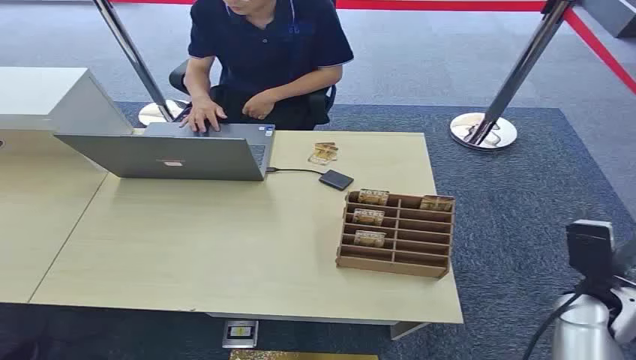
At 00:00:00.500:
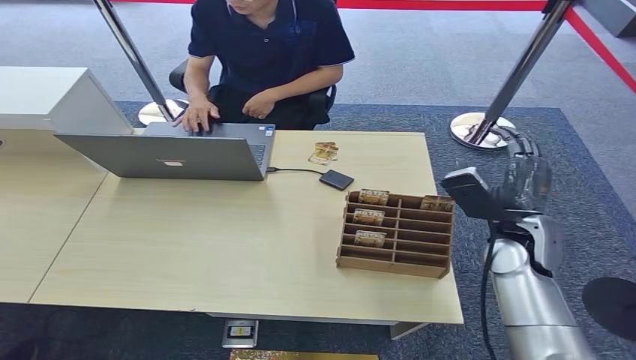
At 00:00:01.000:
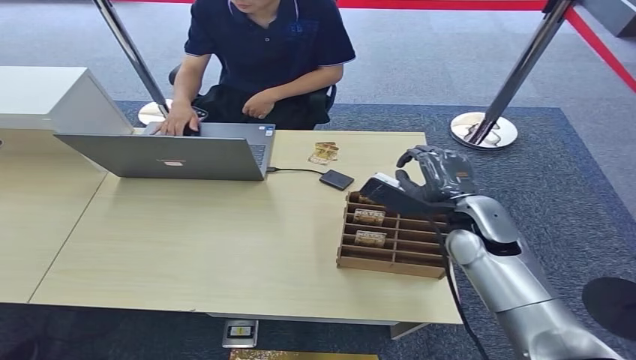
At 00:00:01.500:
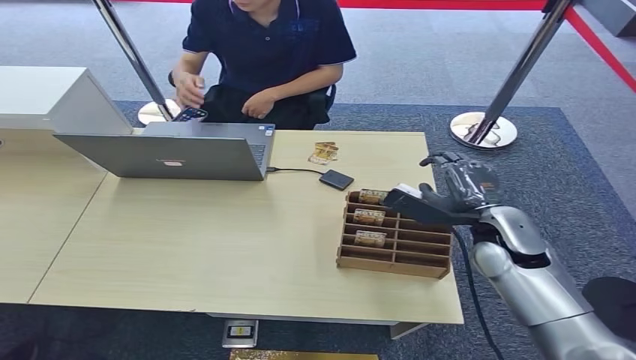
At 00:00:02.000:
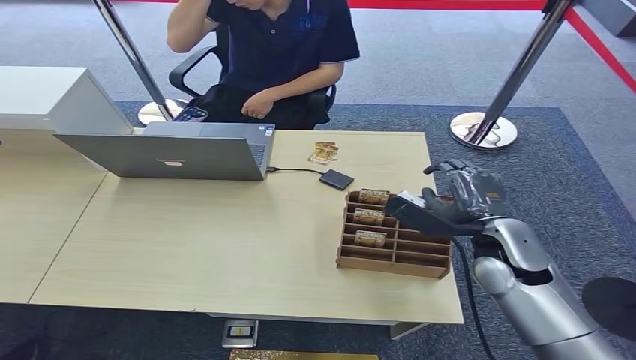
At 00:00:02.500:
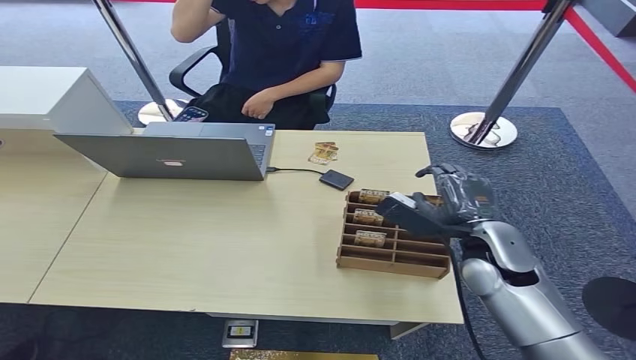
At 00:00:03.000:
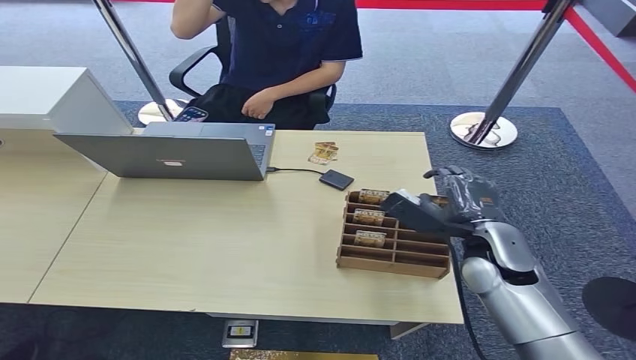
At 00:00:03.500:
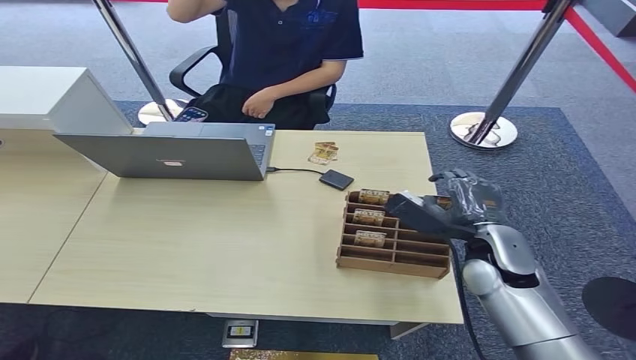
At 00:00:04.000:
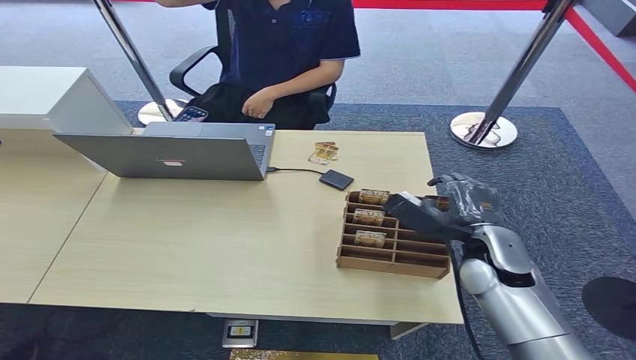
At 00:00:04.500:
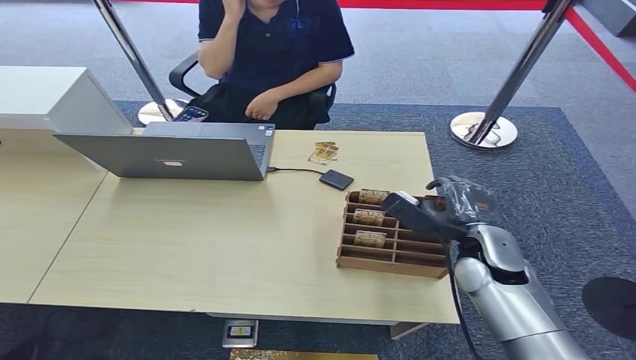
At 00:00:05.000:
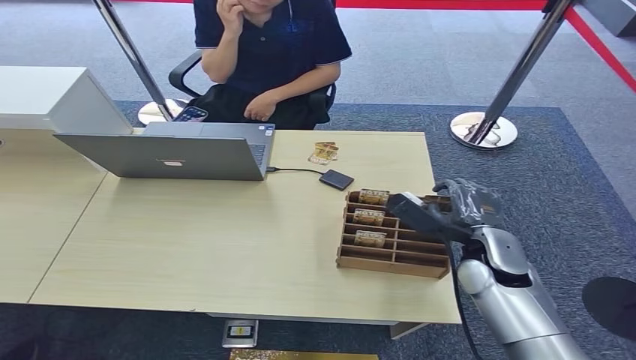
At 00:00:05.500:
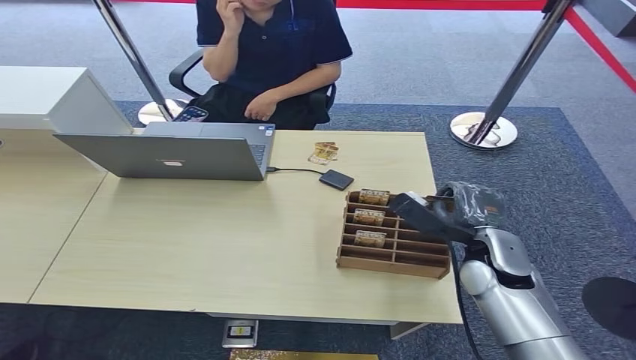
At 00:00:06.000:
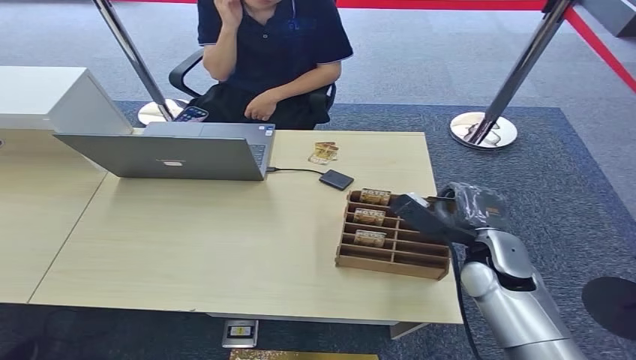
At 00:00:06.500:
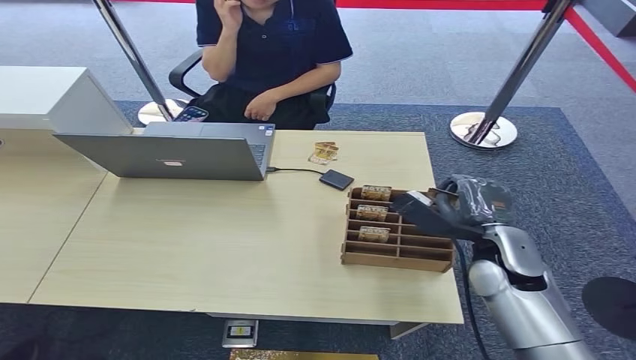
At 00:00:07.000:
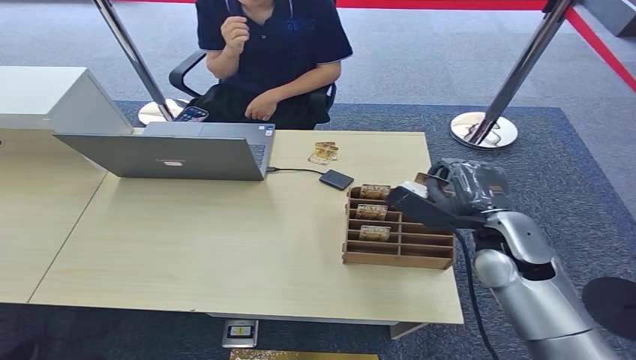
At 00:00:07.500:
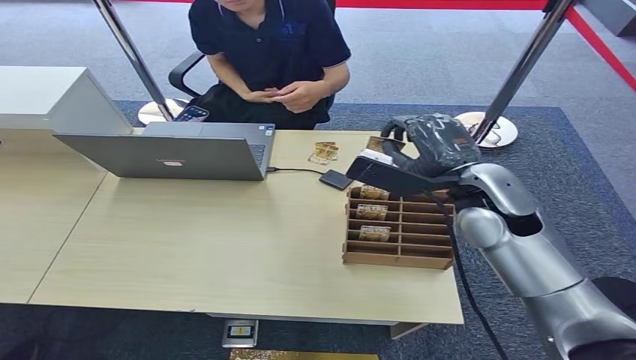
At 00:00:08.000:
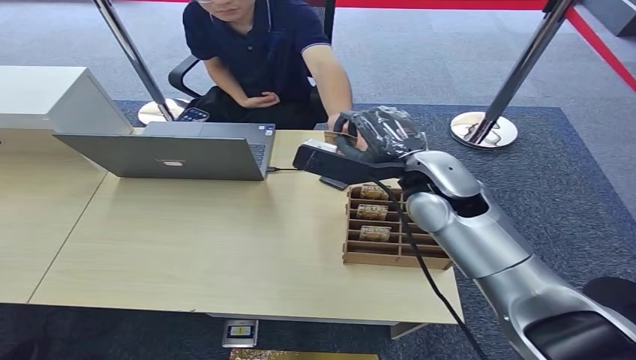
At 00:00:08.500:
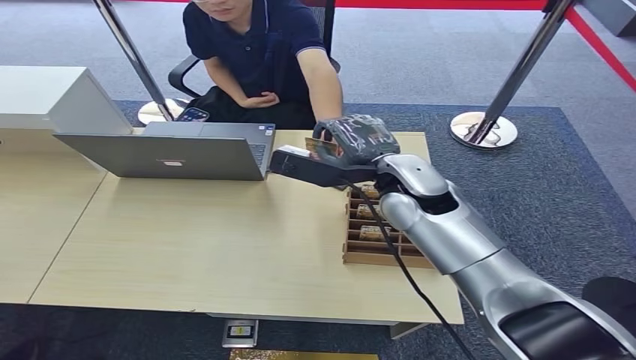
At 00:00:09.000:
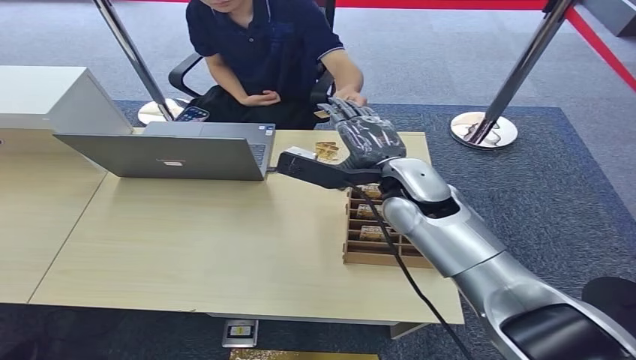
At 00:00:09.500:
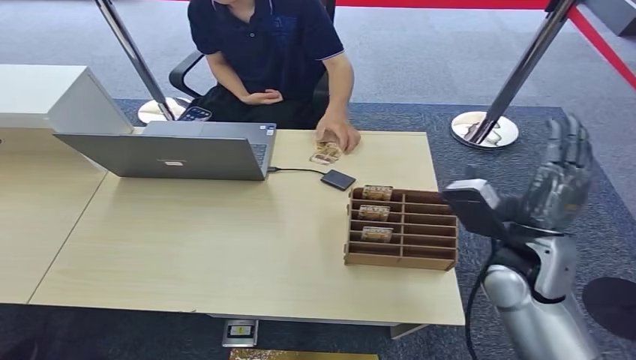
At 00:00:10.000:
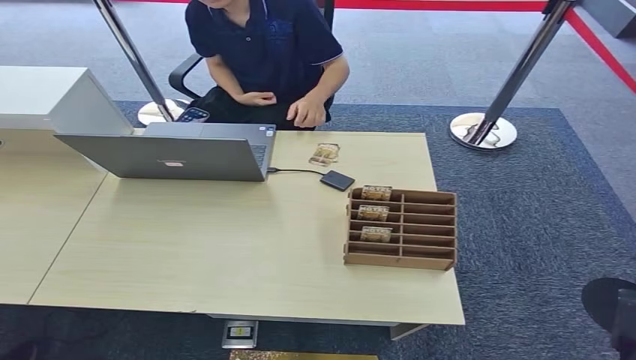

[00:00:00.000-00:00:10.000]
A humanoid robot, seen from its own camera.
Step, 00:00:00.000 to 00:00:07.000: Pick up the key card from the card box.
Step, 00:00:07.500 to 00:00:10.000: Hand the key card to the target.
00:00:02.000 to 00:00:06.000: The hands make only small movements.
00:00:06.000 to 00:00:08.000: The right hand heads upward, to the left and forward, covering roughly 20 cm.
00:00:08.000 to 00:00:10.000: The right hand moves backward, to the right and downward, some 40 cm.
